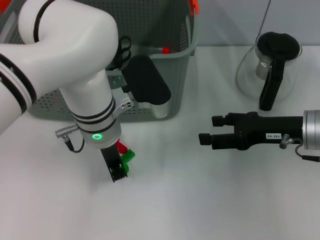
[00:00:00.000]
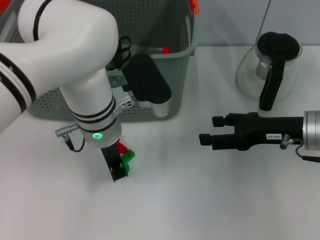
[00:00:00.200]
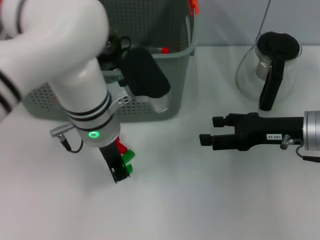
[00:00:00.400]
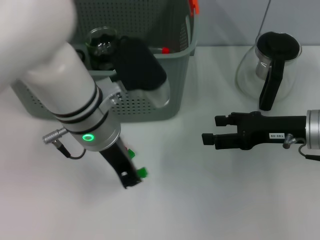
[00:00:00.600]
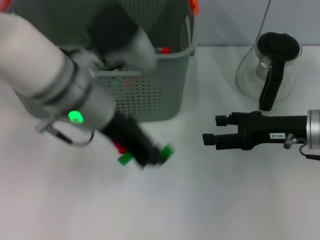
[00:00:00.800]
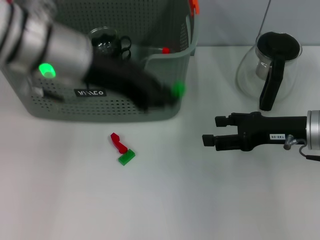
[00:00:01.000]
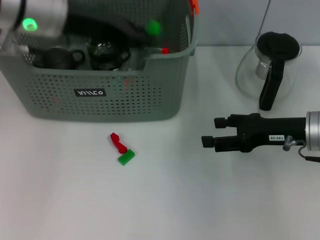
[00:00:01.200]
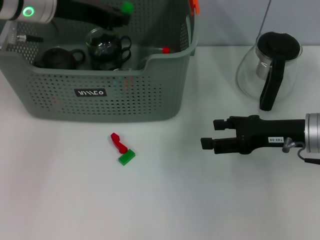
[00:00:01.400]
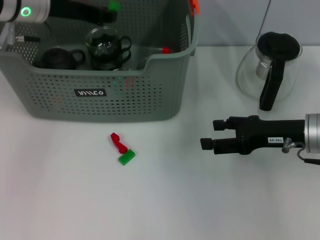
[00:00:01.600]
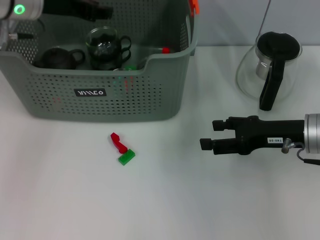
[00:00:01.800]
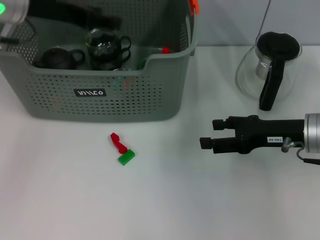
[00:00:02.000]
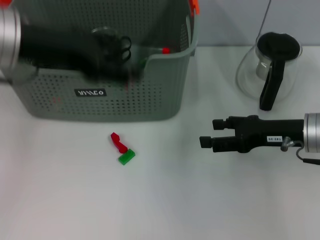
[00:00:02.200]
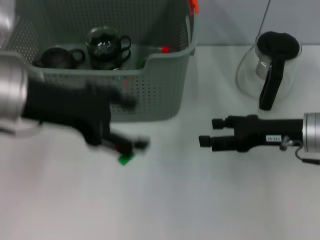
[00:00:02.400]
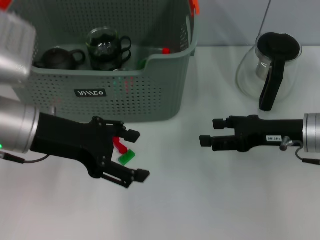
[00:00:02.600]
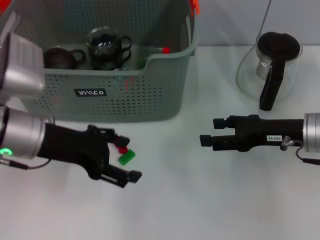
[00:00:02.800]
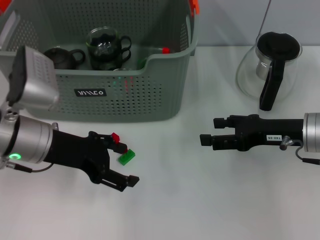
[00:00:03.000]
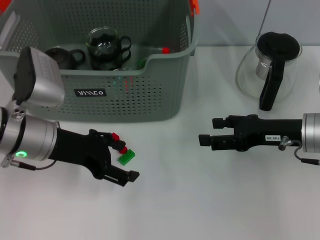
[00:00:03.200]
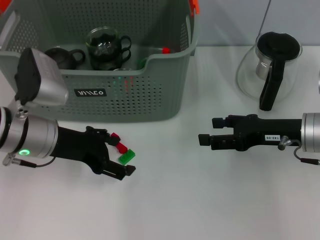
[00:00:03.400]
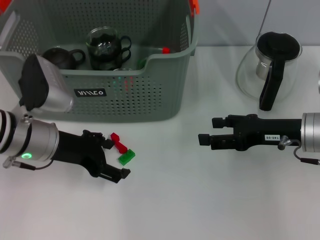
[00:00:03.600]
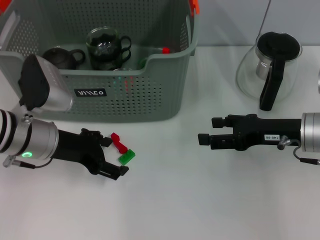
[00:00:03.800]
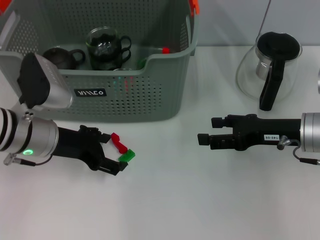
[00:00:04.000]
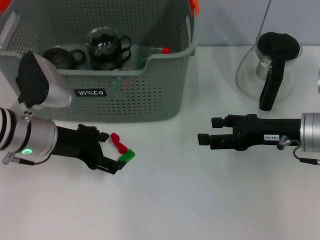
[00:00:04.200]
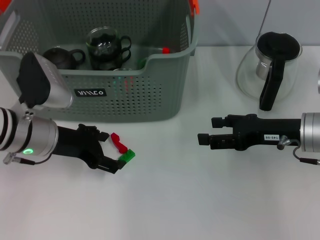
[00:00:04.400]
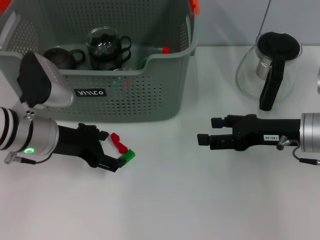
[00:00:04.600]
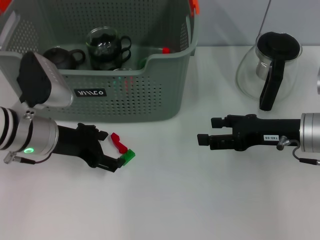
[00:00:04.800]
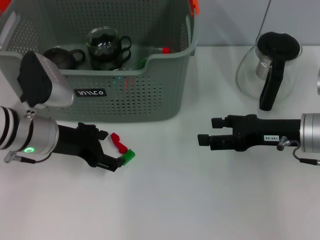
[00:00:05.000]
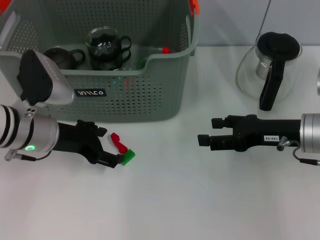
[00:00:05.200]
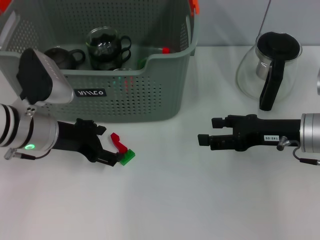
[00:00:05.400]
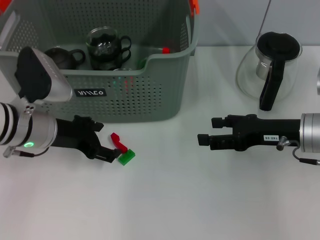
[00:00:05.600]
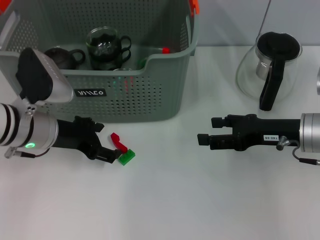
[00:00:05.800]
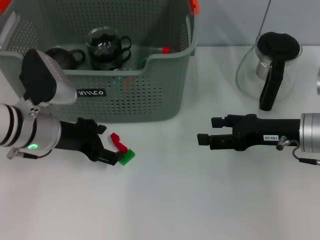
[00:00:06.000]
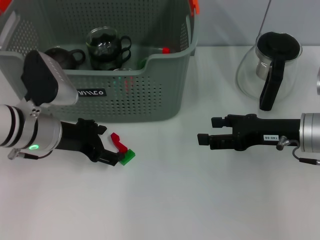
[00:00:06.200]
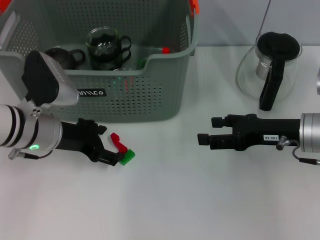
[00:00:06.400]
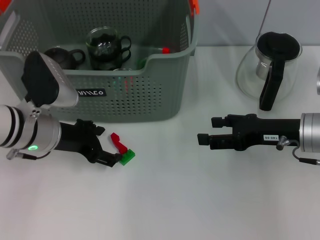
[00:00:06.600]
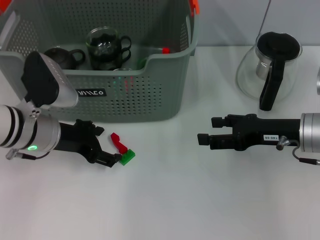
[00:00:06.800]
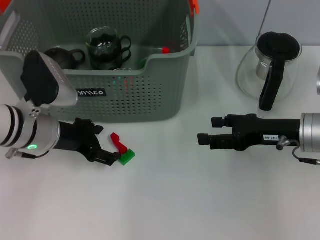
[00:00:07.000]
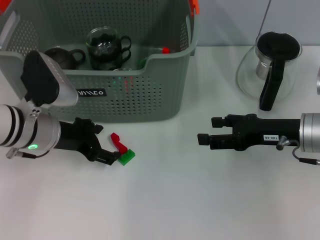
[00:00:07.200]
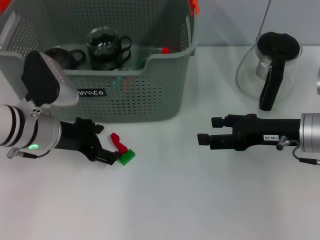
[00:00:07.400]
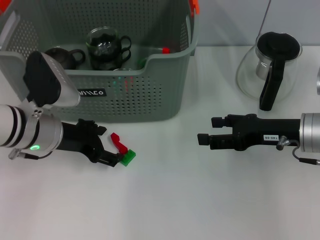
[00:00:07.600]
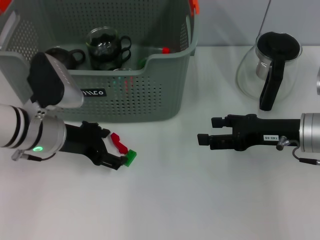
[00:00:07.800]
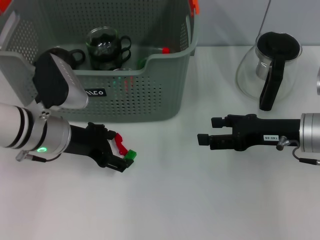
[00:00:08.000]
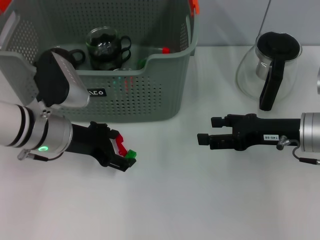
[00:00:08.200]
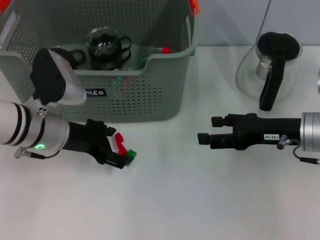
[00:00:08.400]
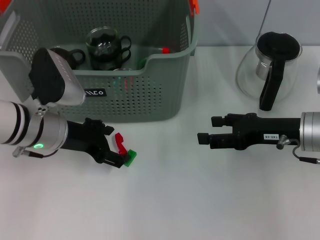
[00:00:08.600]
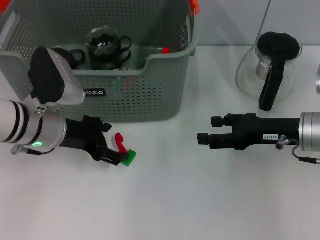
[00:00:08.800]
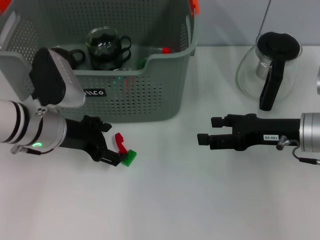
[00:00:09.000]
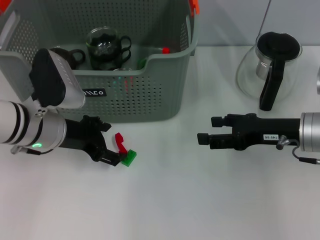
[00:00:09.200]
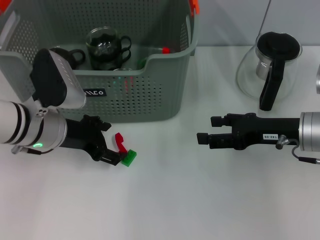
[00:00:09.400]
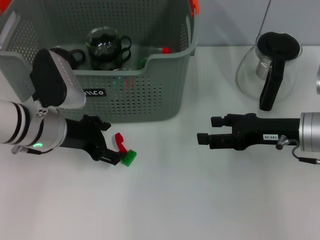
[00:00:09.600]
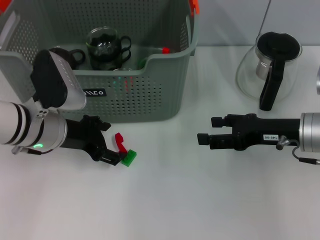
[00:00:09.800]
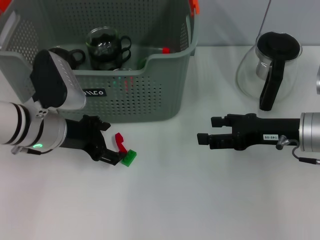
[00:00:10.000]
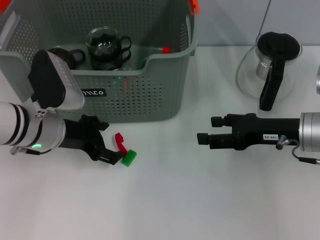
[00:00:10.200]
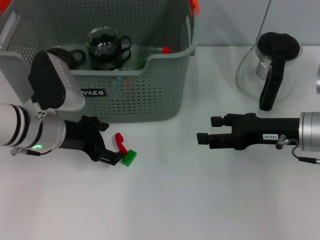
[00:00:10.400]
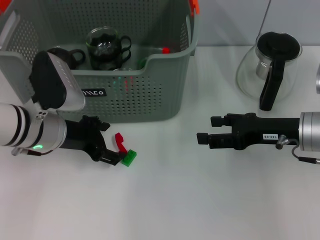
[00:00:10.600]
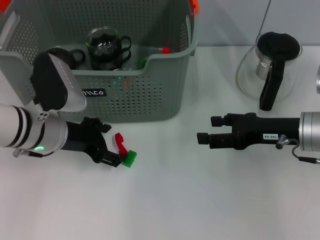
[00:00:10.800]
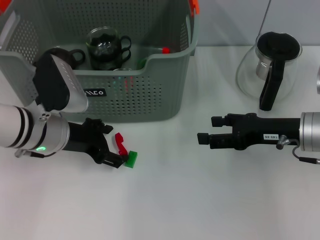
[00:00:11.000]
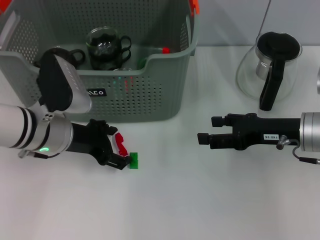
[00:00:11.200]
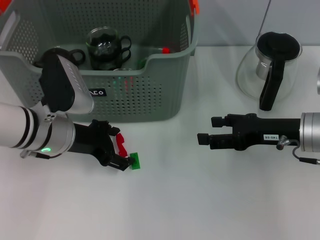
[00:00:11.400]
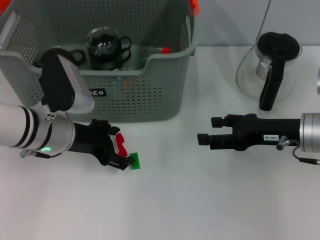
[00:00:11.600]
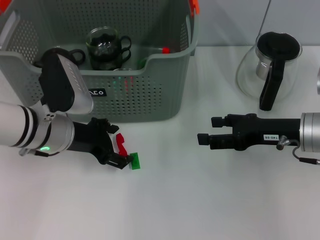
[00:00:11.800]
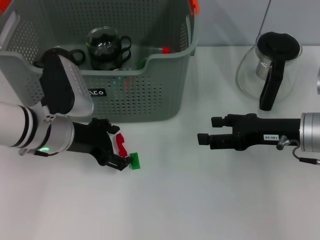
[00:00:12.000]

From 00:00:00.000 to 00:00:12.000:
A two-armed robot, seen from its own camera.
Task of the whole recording: pick up the teacup on the table and place it into the storage bin, pick up the block on the table and place it into the storage bin.
Step, from 00:00:00.200 to 00:00:01.800: Place the green block in the storage box with left gripper.
From 00:00:00.000 to 00:00:01.600: The left gripper moves to the left, upward and forward, some 20 cm.
From 00:00:01.600 to 00:00:03.000: The left gripper goes roughly 15 cm backward and downward, and opens up.
From 00:00:03.000 to 00:00:04.400: The grippers move only a little.
From 00:00:04.400 to 00:00:06.000: Neither gripper changes place.
From 00:00:06.000 to 00:00:07.600: Both grippers stay put.
From 00:00:07.600 to 00:00:09.000: The grippers make only small movements.
From 00:00:09.000 to 00:00:10.400: Both grippers stay put.
From 00:00:10.400 to 00:00:12.000: The grippers make only small movements.

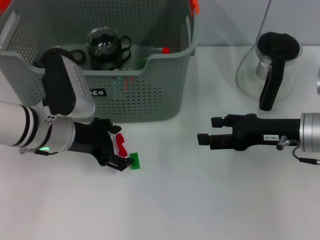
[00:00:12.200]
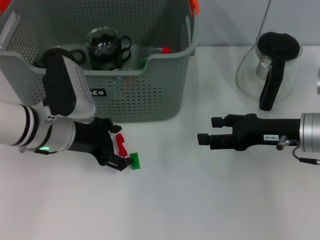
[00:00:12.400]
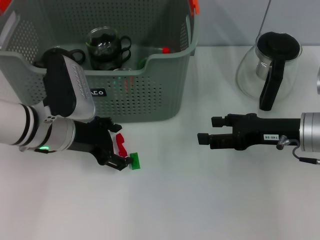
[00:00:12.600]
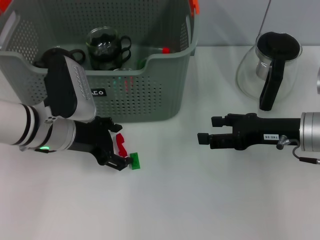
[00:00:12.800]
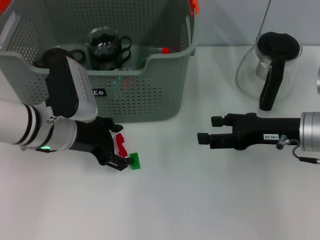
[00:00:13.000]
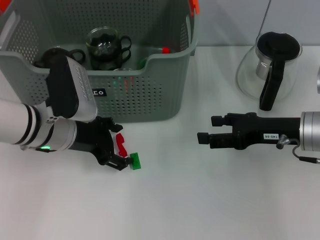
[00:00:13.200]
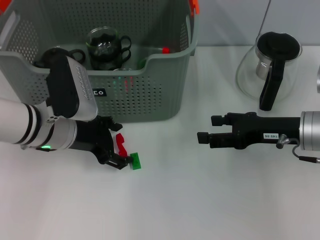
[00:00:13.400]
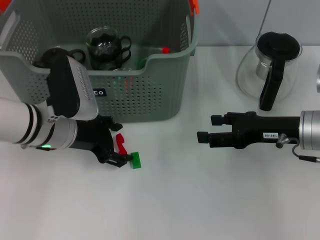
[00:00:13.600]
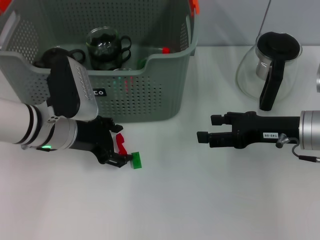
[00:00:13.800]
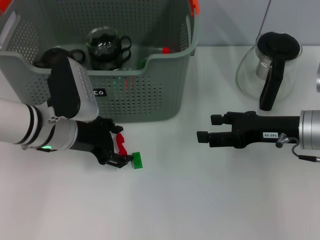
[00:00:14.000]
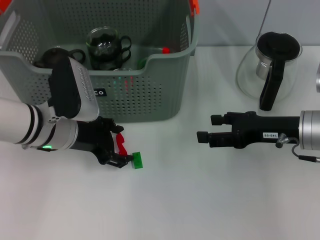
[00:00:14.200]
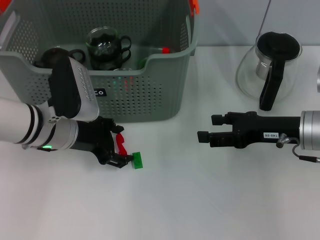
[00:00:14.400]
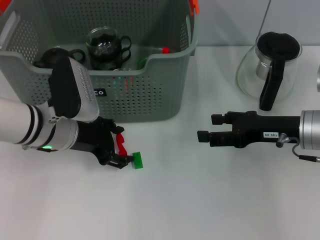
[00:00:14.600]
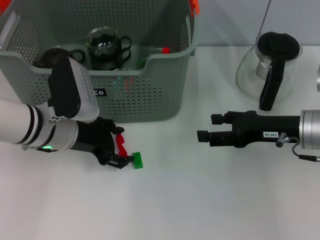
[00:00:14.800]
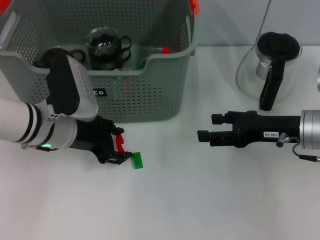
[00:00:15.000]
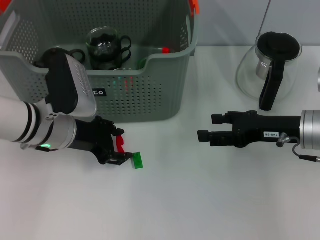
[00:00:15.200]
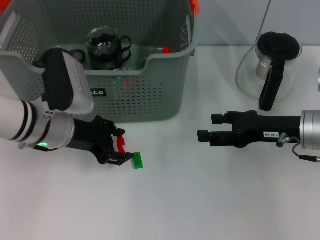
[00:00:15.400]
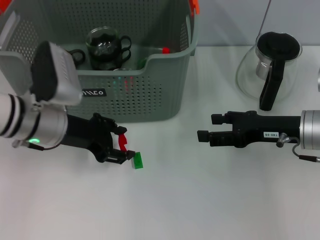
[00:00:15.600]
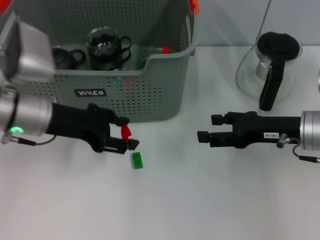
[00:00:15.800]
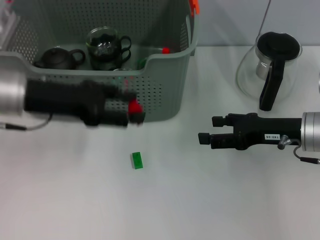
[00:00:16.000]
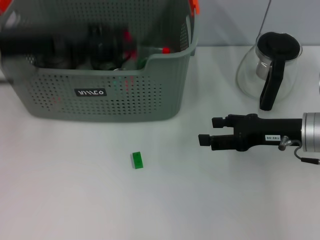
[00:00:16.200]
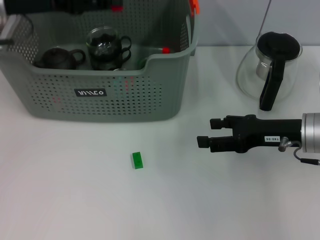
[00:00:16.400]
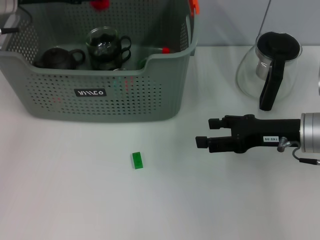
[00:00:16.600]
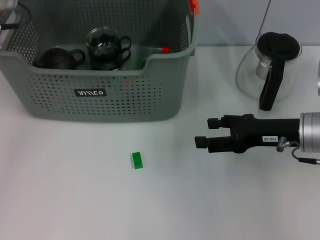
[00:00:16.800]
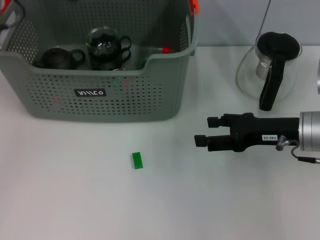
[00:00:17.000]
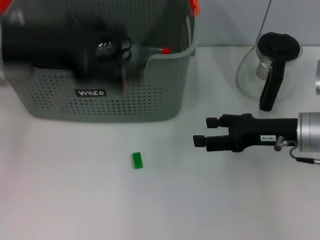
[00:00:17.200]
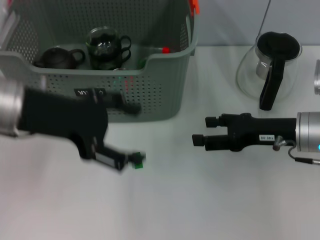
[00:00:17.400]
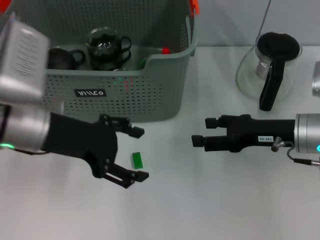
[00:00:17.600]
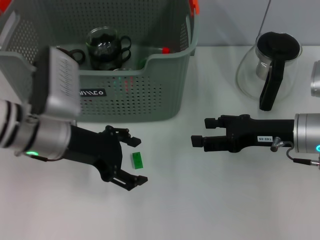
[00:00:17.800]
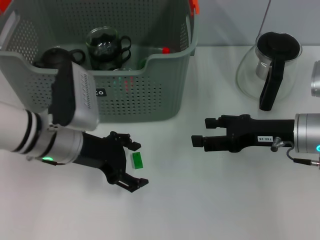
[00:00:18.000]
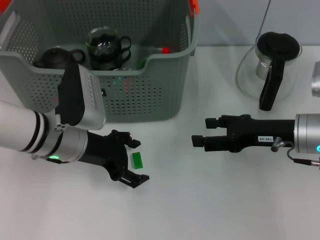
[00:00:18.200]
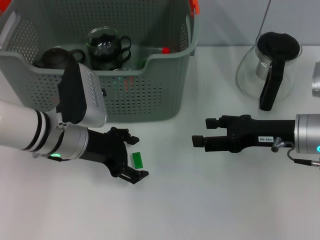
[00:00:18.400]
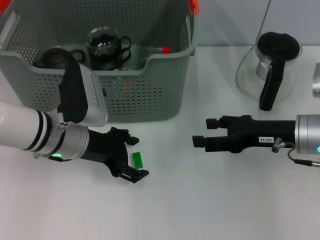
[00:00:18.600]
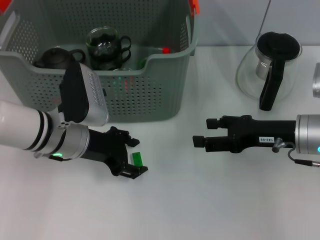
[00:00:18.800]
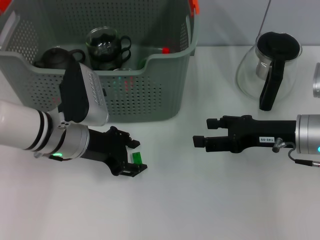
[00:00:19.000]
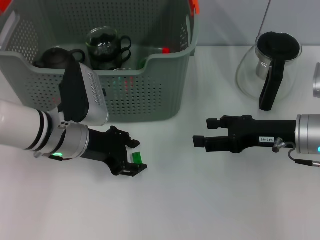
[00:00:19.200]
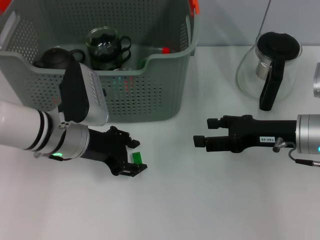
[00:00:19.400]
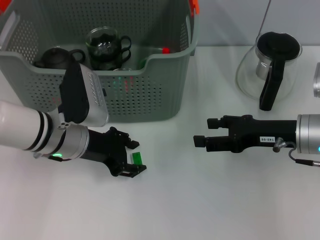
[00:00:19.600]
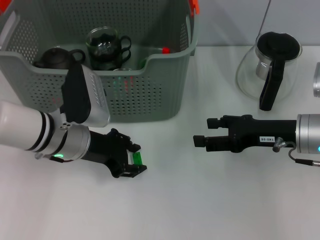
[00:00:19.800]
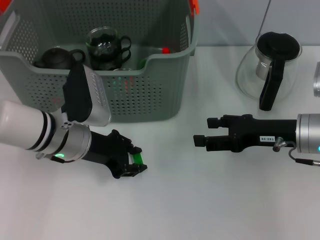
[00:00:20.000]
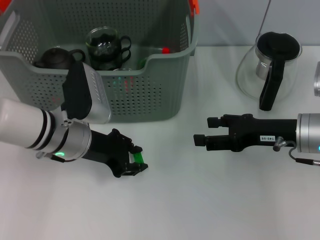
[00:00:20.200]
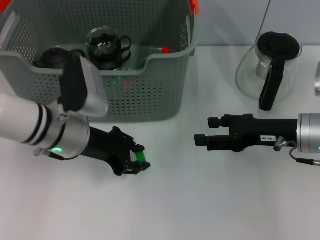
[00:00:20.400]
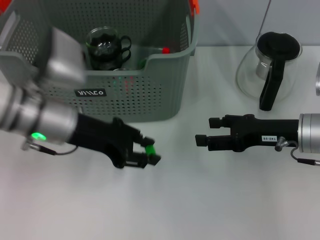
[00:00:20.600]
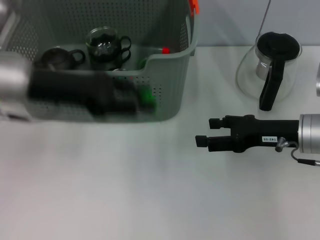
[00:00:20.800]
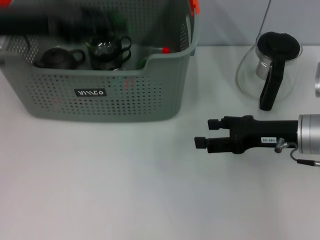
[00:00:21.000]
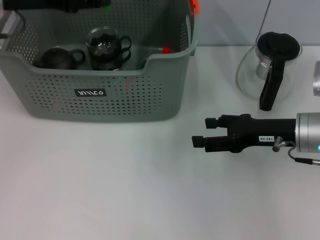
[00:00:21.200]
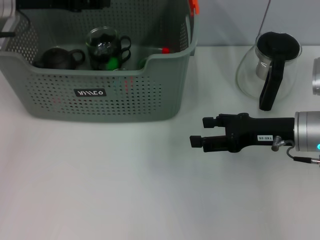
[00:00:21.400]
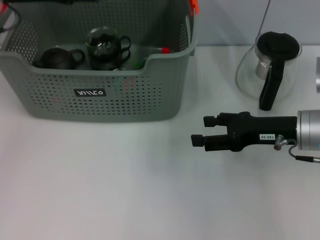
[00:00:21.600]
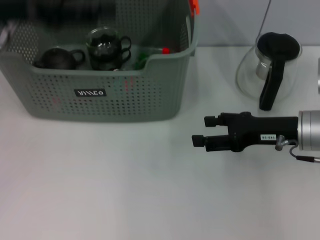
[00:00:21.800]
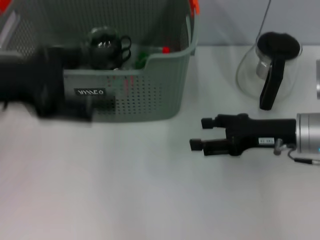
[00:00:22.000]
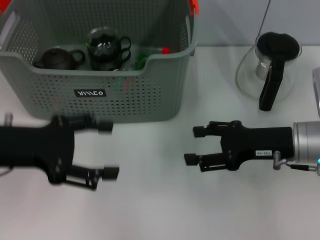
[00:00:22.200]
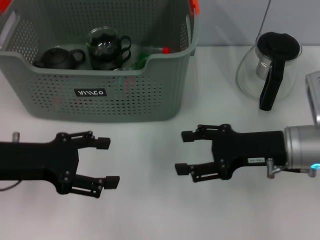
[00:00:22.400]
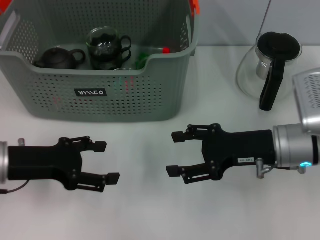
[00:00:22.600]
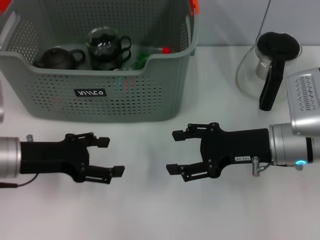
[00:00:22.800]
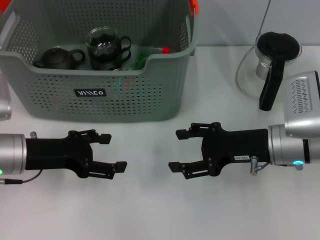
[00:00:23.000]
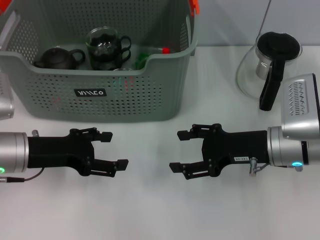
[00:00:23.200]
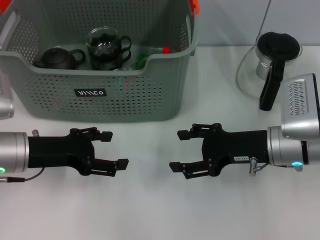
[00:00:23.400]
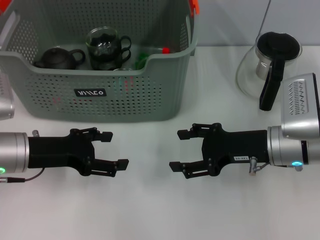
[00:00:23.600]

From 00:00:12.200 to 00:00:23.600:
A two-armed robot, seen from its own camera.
Task of the whole recording: pick up the teacup on the table and place it into the storage bin, pick up the block on the table and place it into the storage bin.
Step, from 00:00:12.200 to 00:00:15.200: Grasp the red block with left gripper.
Step, from 00:00:15.600 to 00:00:16.800: Place the red block in the storage box with left gripper.
Step, from 00:00:17.000 to 00:00:20.000: Grasp the green block with left gripper.
Step, from 00:00:20.400 to 00:00:21.400: Place the green block in the storage box with left gripper.
From 00:00:12.200 to 00:00:15.000: The two grippers keep their place.
From 00:00:15.000 to 00:00:16.400: The left gripper travels upward and to the left by approximately 15 cm.
From 00:00:16.400 to 00:00:17.800: The left gripper heads downward, backward and to the right, covering about 15 cm.
From 00:00:17.800 to 00:00:19.400: The left gripper ends up approximately 5 cm from where it was.
From 00:00:19.400 to 00:00:20.800: The left gripper is displaced upward by some 10 cm.
From 00:00:20.800 to 00:00:22.200: The left gripper heads backward, covering roughly 5 cm, and opens.
From 00:00:22.200 to 00:00:23.600: The left gripper travels downward by approximately 10 cm.
